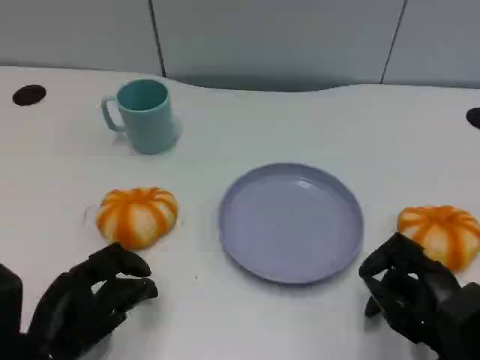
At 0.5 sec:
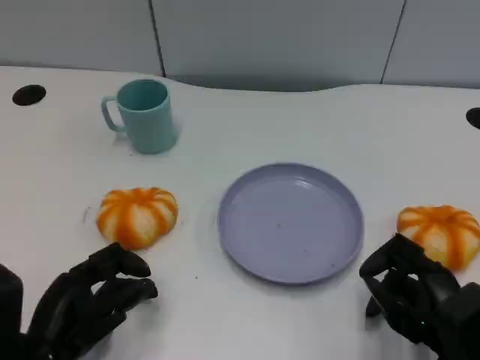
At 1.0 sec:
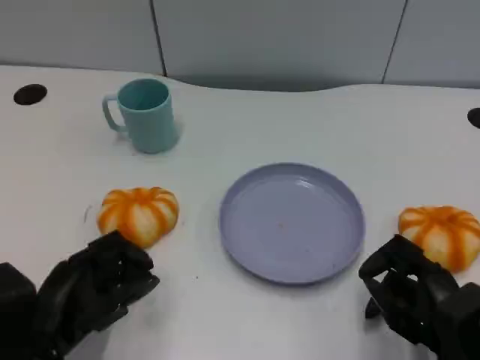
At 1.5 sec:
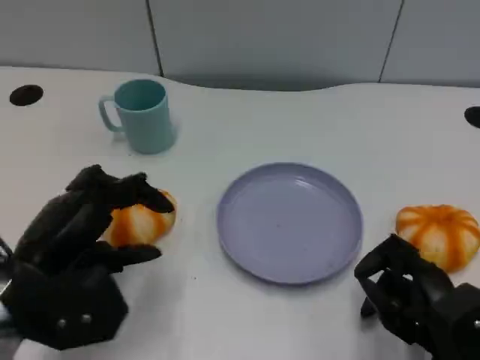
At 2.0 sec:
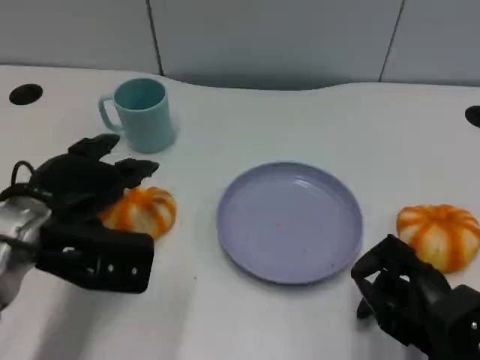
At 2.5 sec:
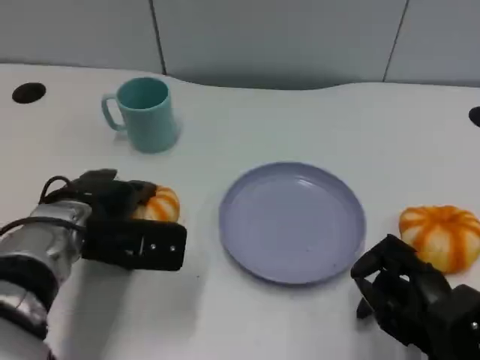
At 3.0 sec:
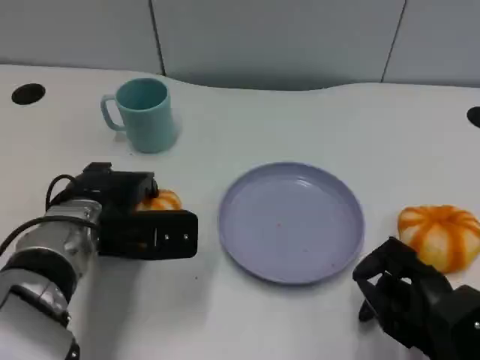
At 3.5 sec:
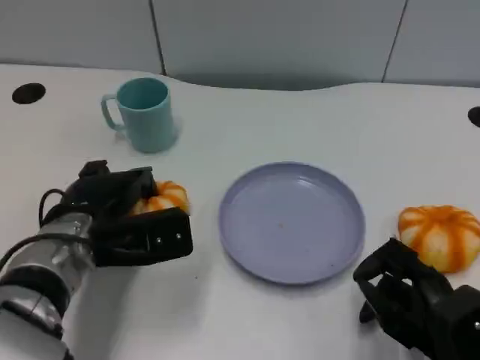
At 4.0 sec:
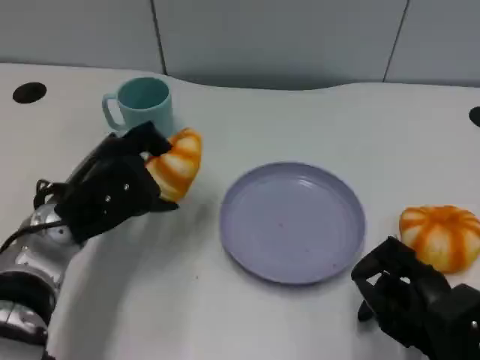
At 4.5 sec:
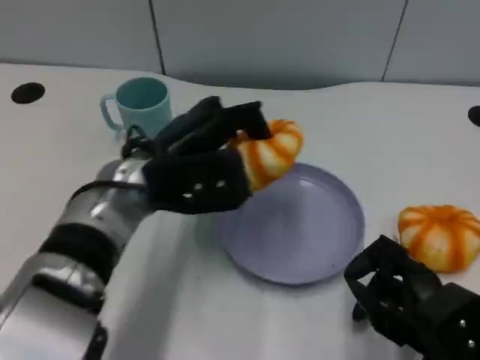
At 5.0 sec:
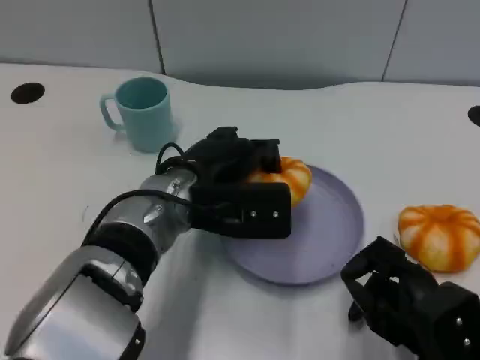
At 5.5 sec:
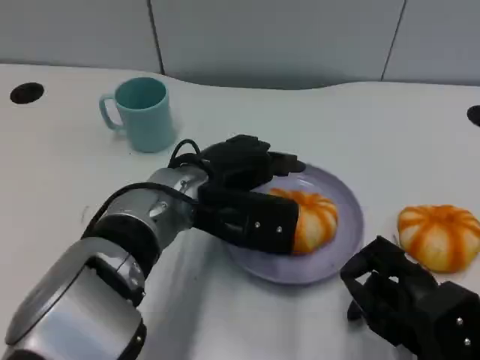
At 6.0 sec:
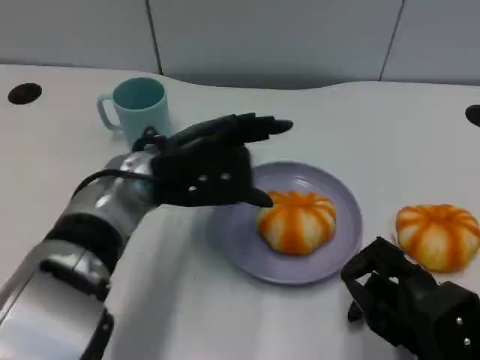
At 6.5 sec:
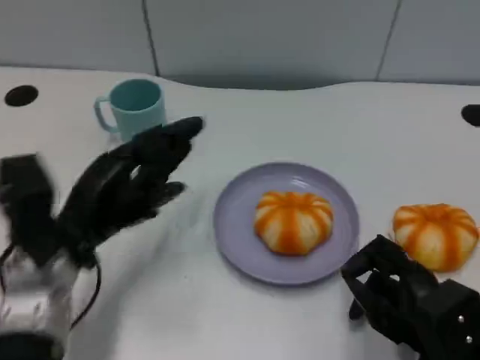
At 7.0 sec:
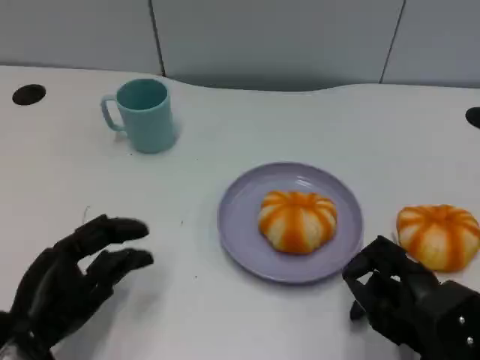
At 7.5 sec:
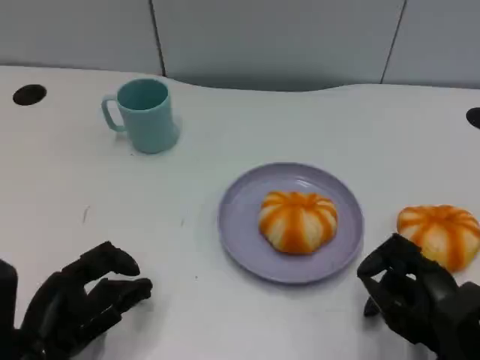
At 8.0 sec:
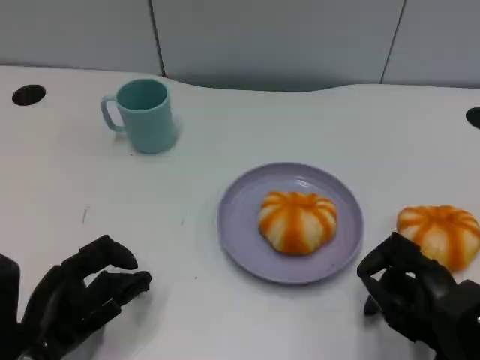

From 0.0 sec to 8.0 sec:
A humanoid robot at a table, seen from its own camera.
Task of the whole recording: Grasp the bread from the table and place it into the plate.
From 0.0 sec to 2.0 sec: The left hand is displaced forward and upward by approximately 15 cm.
From 4.0 sec to 6.0 sec: The left hand heads to the right, covering roughly 5 cm.
From 6.0 sec to 8.0 sec: The left hand goes about 20 cm backward, to the left and downward.

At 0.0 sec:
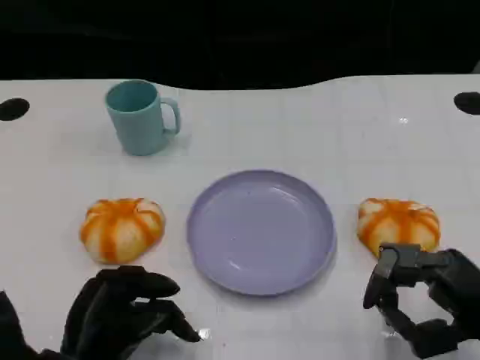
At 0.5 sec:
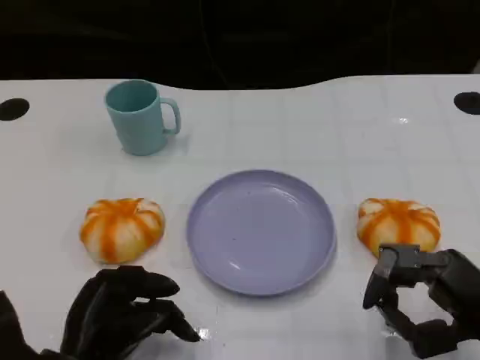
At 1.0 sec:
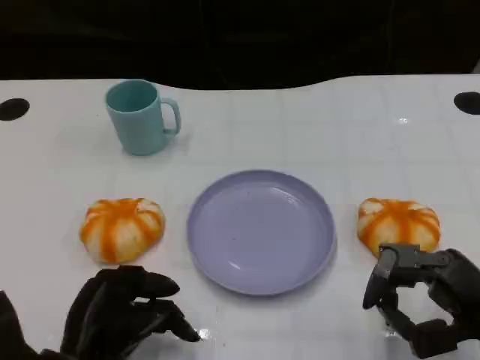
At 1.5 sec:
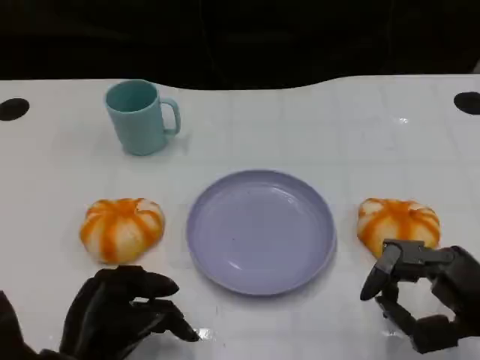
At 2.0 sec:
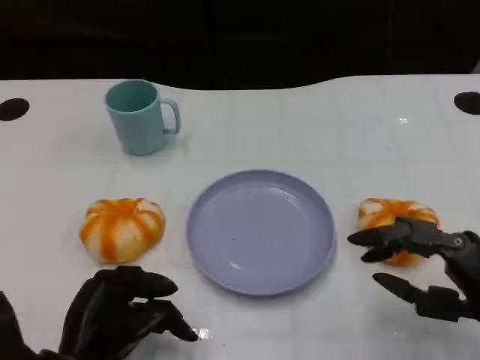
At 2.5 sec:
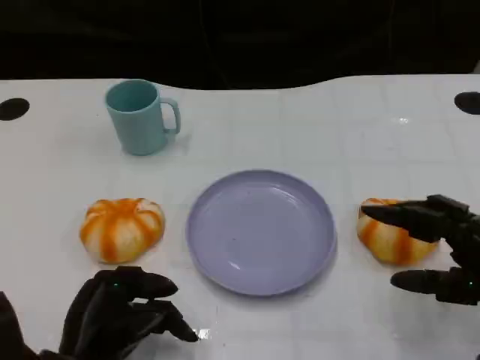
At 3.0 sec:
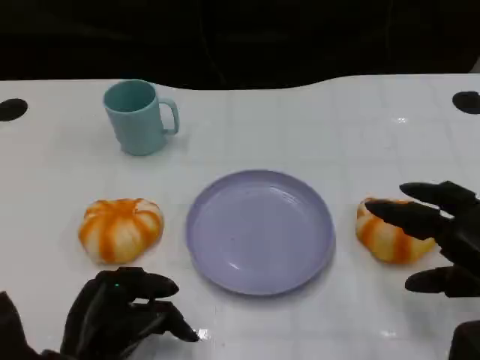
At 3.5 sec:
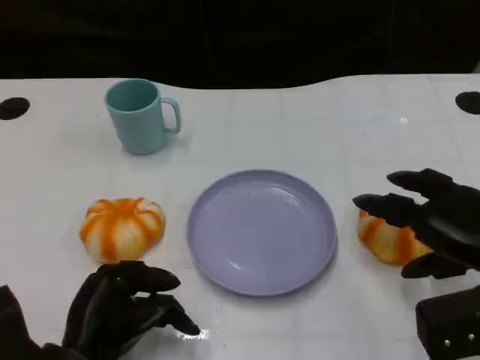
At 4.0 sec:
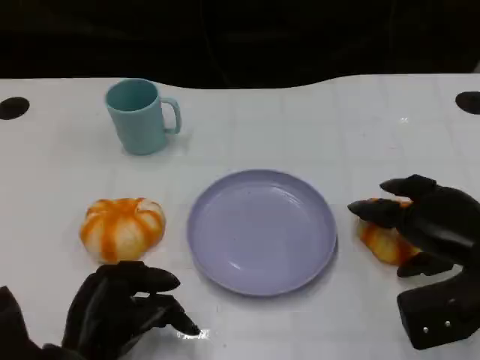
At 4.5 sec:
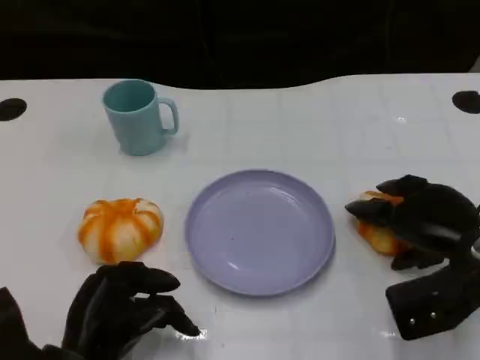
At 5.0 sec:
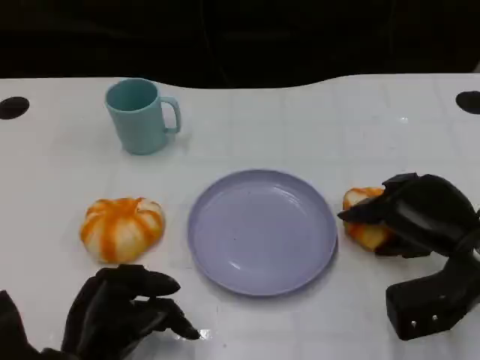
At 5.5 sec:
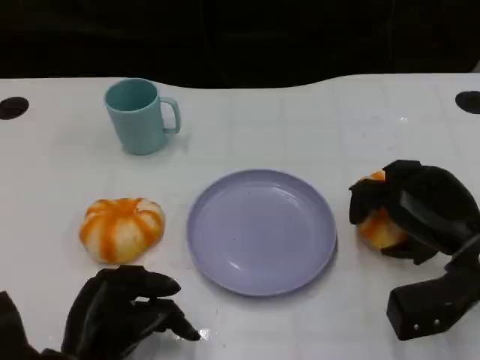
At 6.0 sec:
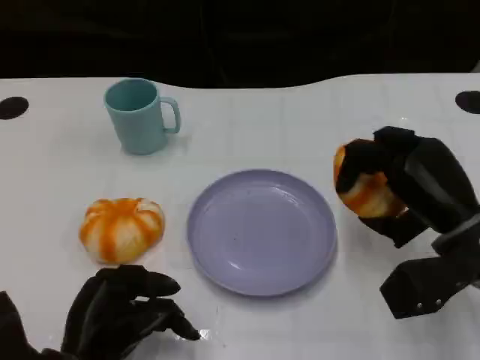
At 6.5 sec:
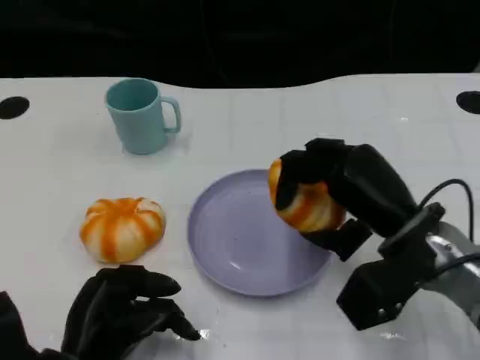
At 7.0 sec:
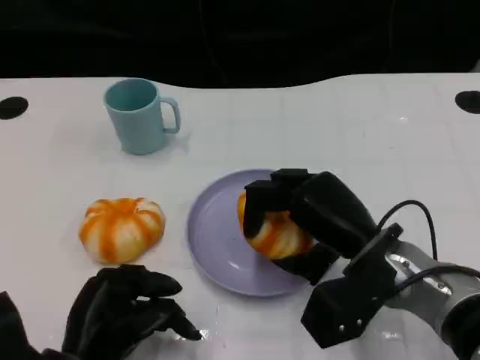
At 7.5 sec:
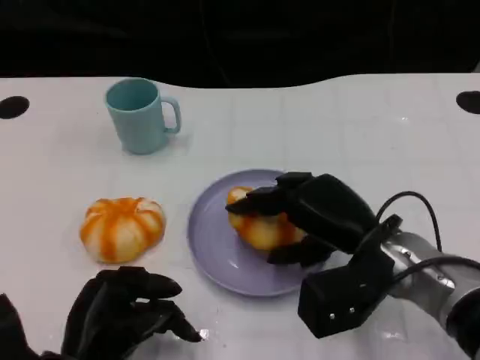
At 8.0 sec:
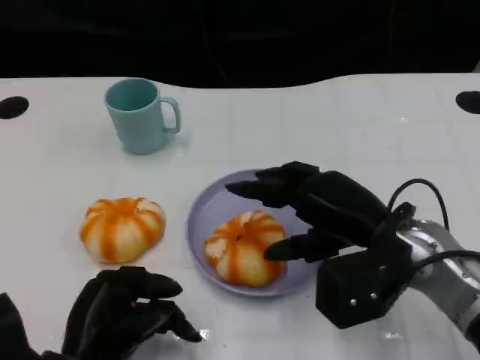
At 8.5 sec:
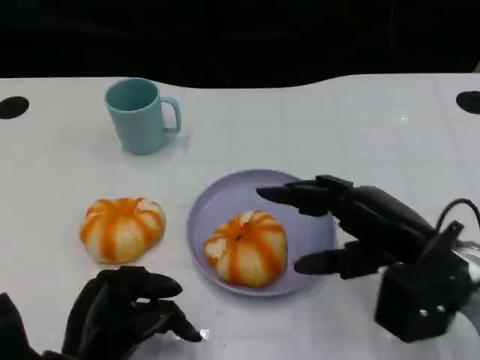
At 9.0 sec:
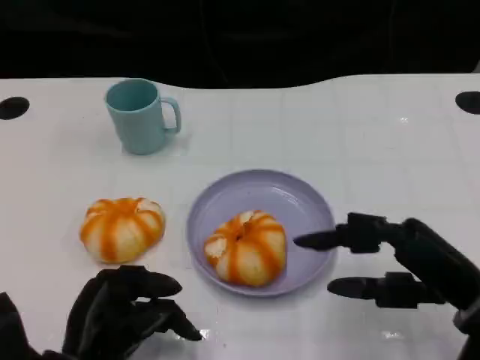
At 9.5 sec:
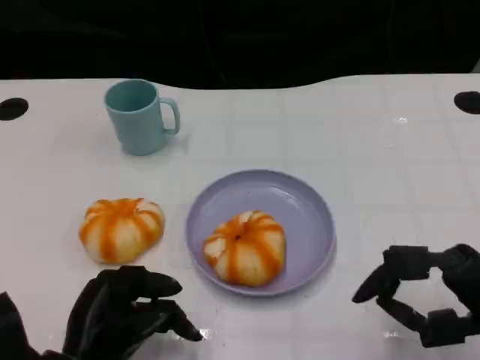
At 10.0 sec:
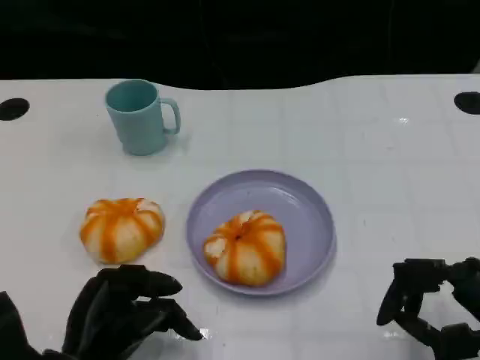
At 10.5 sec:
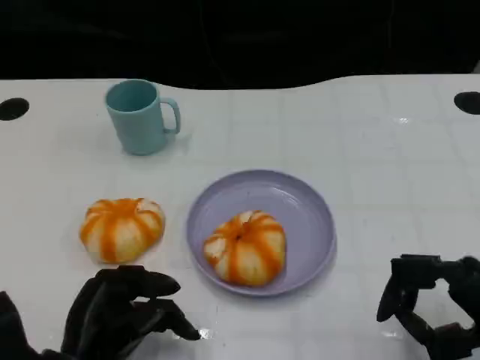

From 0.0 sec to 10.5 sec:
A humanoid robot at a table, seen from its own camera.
Task of the whole recording: Grasp the bread from the table and place it into the plate.
From 0.0 sec to 2.0 sec: The hands move only a little.
From 2.0 sec to 4.0 sec: The right hand shifts roughly 10 cm forward.
From 4.0 sec to 6.5 sec: The right hand goes some 10 cm to the left.
From 8.5 sec to 10.5 sec: The right hand goes roughly 10 cm backward and to the right.

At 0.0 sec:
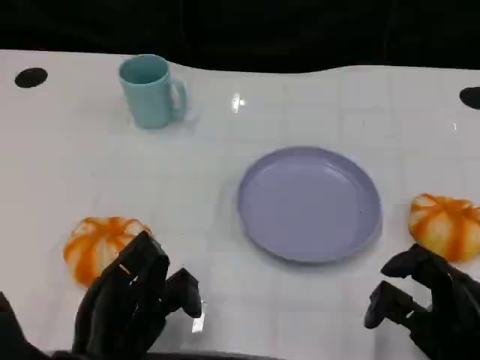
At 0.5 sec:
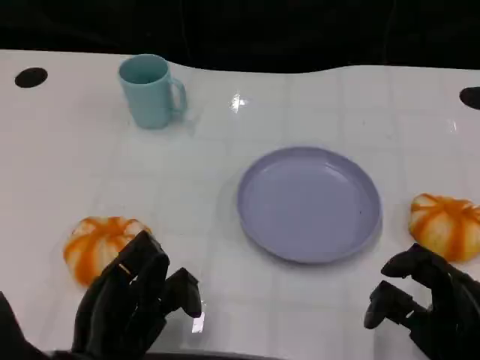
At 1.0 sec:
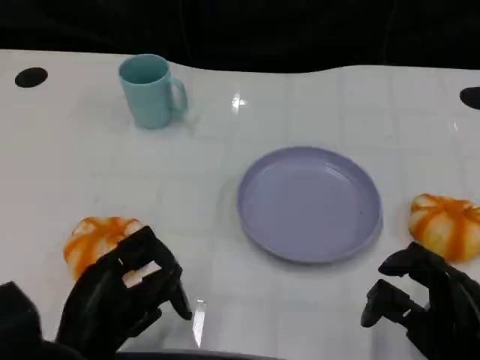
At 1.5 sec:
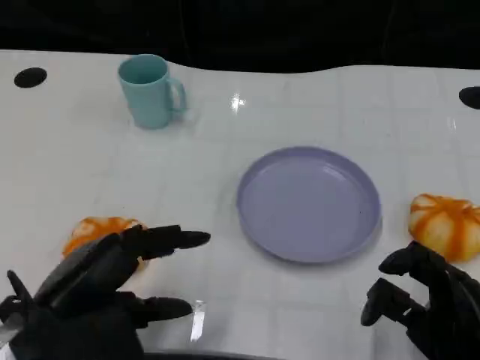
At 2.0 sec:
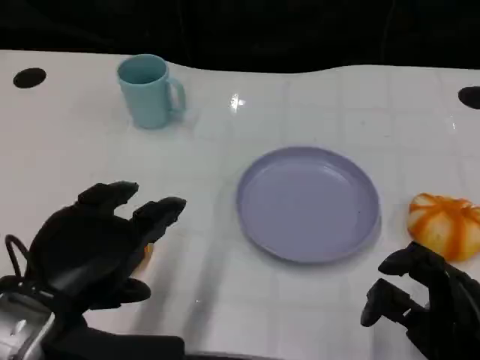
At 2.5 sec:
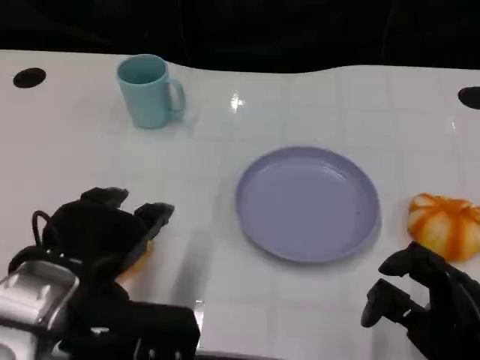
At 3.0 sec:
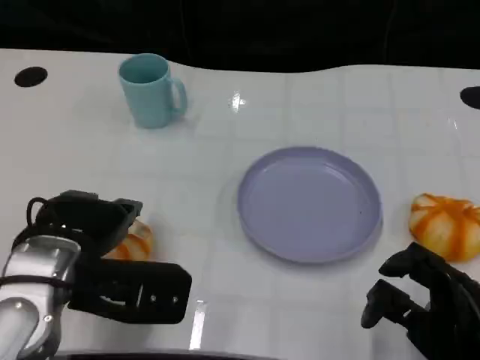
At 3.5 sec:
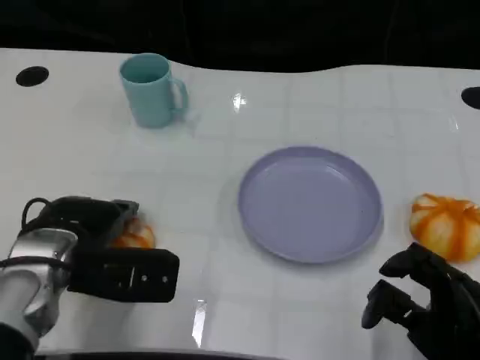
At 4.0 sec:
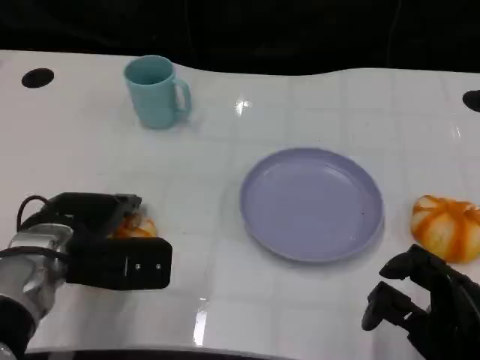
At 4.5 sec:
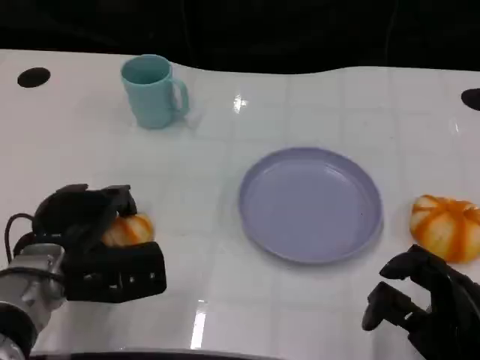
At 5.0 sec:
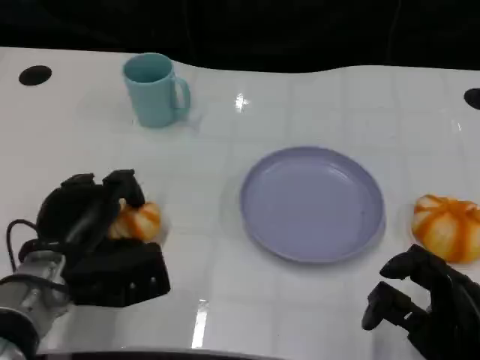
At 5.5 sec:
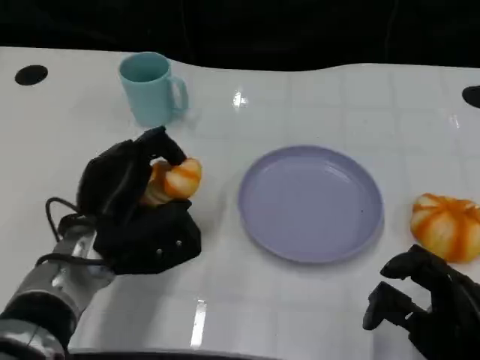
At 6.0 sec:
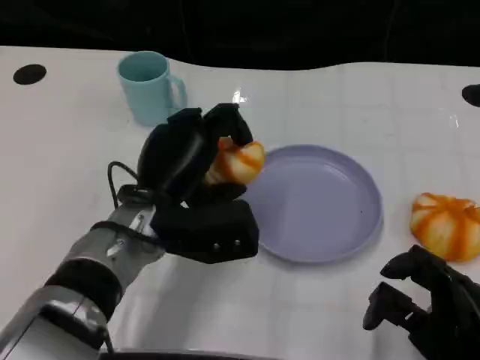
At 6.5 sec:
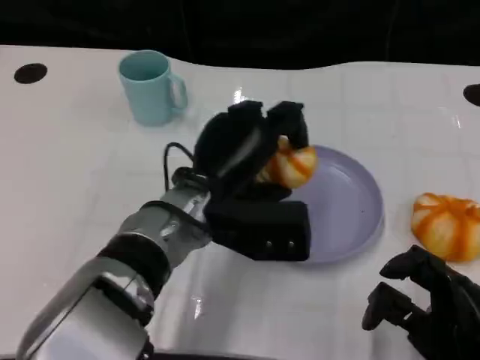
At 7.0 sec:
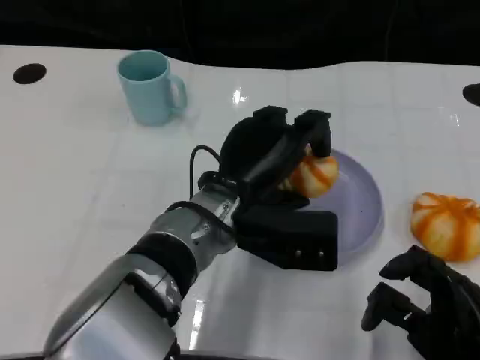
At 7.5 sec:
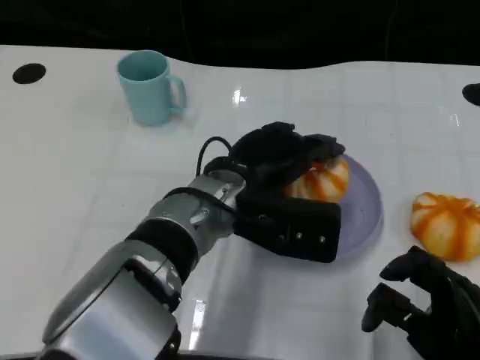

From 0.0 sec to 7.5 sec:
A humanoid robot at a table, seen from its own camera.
Task of the whole recording: Grasp the bread from the table and place it into the plate.
From 0.0 sec to 2.0 sec: The left hand goes some 10 cm upward.
From 2.0 sec to 4.0 sec: The left hand shifts roughly 15 cm forward and downward.
From 5.5 sec to 7.5 sec: The left hand is displaced to the right by some 10 cm.
